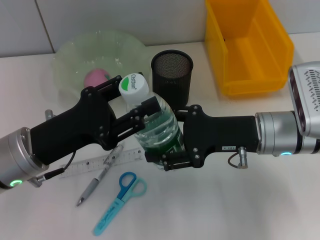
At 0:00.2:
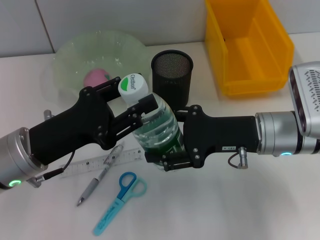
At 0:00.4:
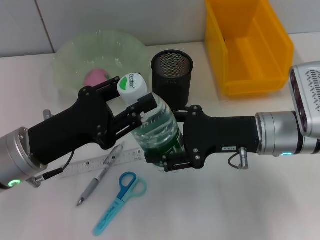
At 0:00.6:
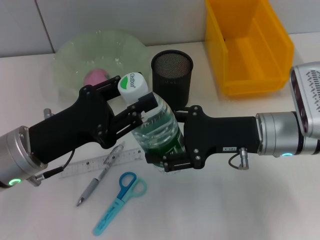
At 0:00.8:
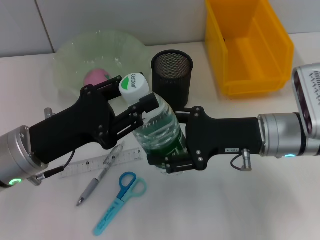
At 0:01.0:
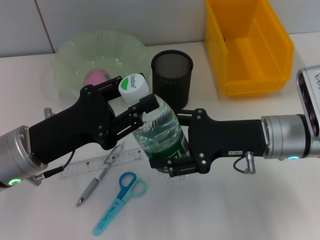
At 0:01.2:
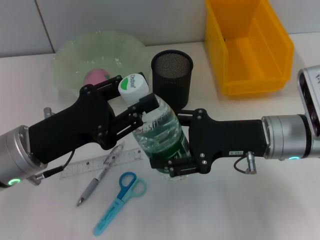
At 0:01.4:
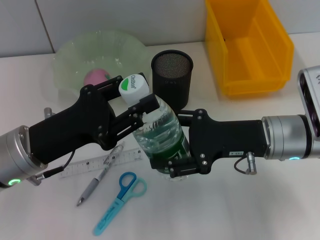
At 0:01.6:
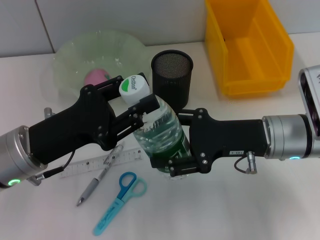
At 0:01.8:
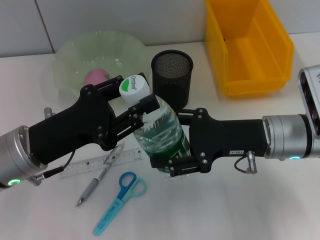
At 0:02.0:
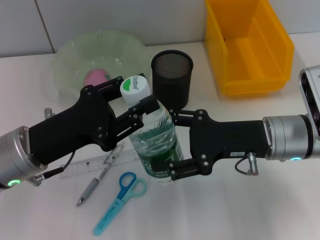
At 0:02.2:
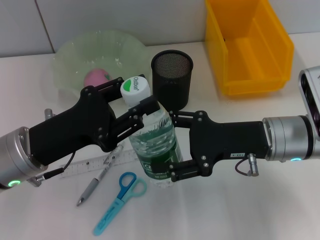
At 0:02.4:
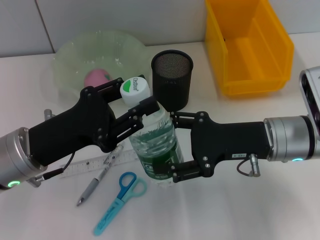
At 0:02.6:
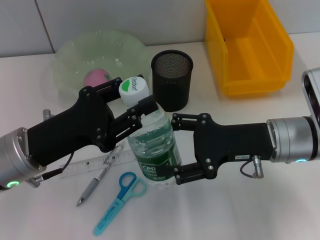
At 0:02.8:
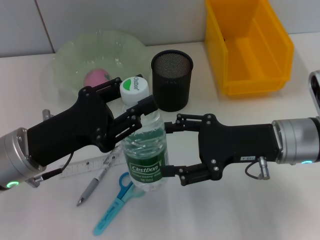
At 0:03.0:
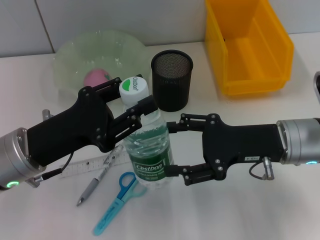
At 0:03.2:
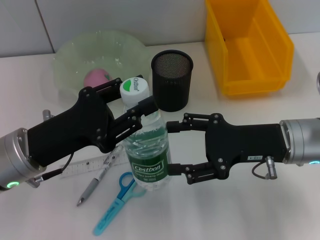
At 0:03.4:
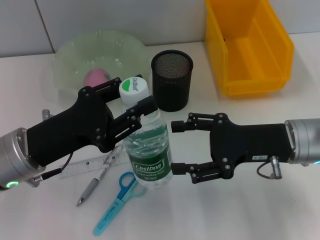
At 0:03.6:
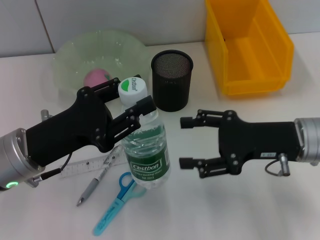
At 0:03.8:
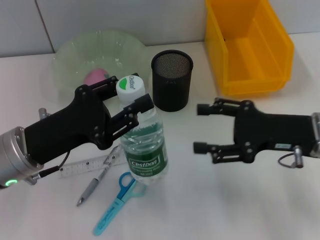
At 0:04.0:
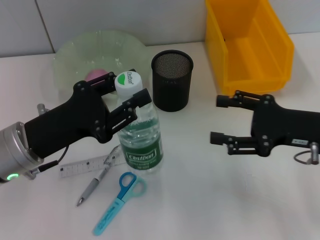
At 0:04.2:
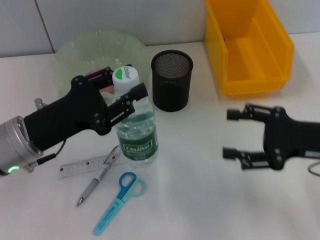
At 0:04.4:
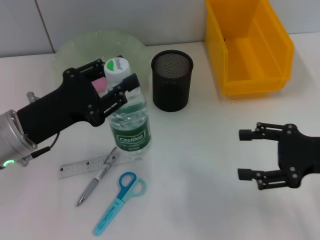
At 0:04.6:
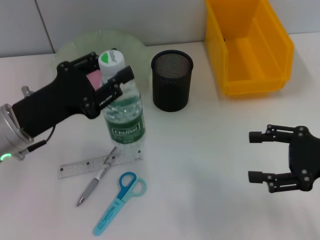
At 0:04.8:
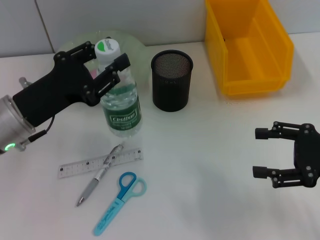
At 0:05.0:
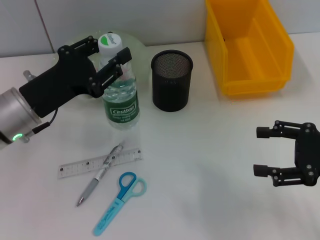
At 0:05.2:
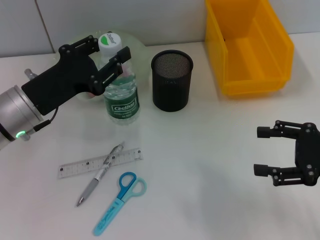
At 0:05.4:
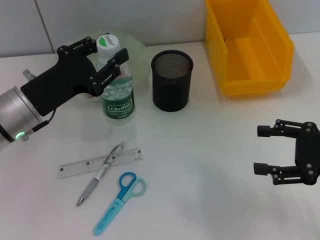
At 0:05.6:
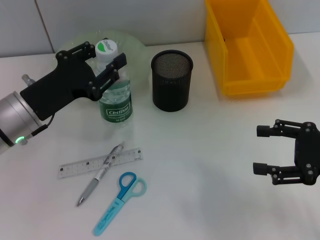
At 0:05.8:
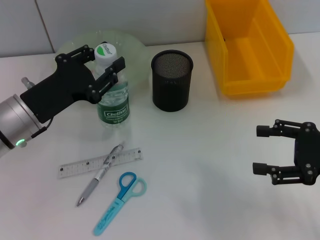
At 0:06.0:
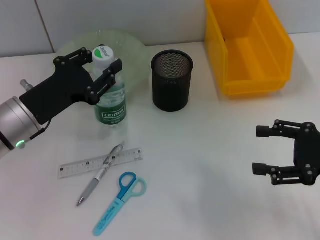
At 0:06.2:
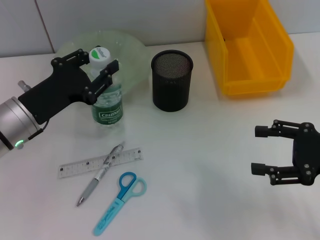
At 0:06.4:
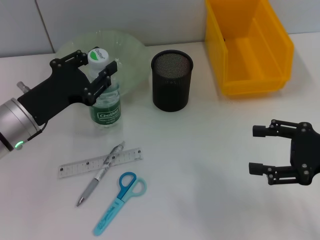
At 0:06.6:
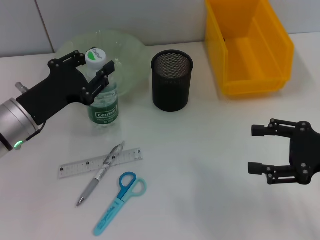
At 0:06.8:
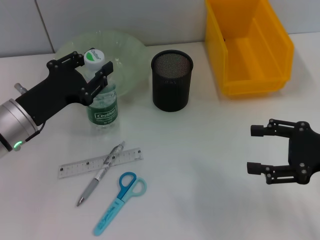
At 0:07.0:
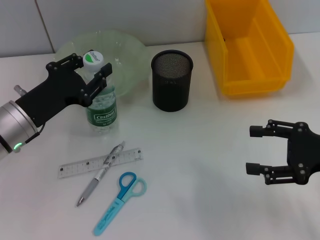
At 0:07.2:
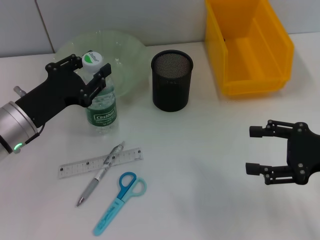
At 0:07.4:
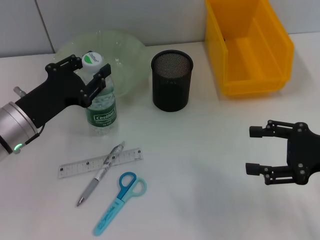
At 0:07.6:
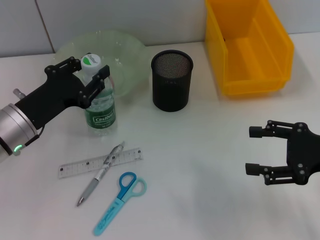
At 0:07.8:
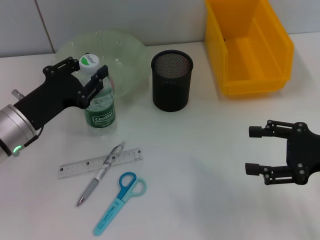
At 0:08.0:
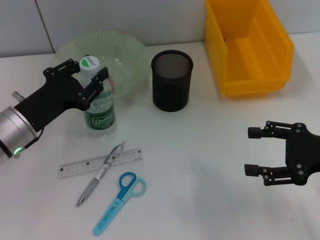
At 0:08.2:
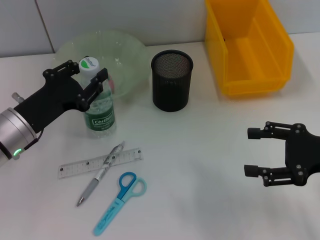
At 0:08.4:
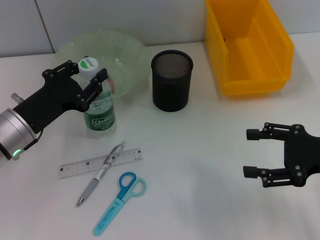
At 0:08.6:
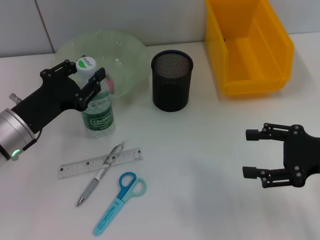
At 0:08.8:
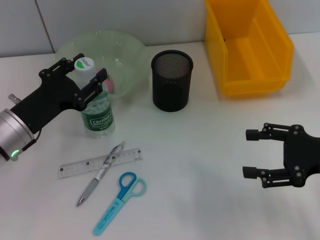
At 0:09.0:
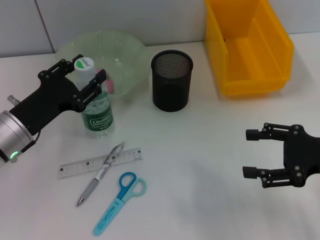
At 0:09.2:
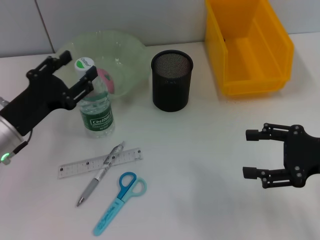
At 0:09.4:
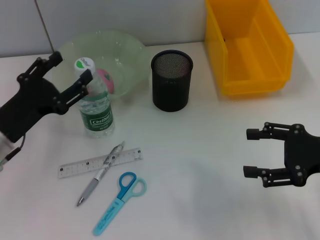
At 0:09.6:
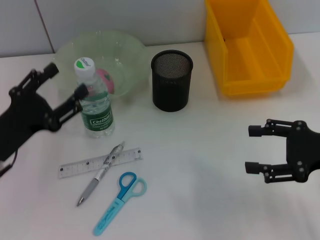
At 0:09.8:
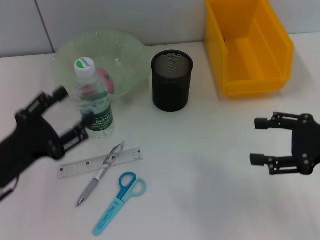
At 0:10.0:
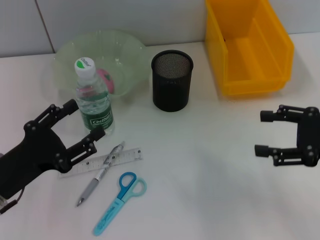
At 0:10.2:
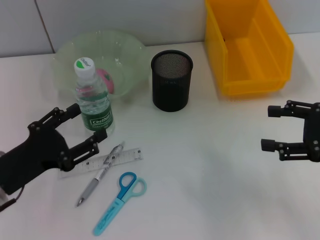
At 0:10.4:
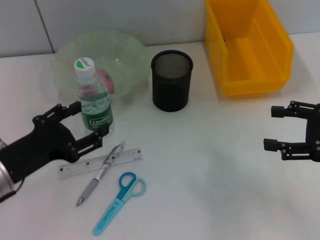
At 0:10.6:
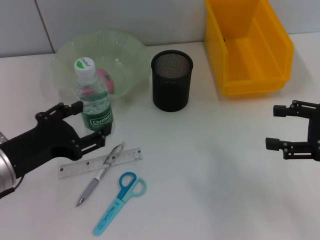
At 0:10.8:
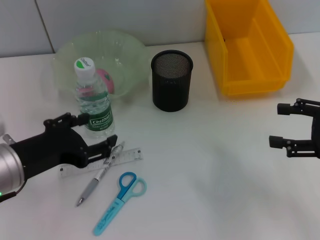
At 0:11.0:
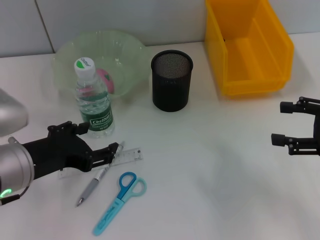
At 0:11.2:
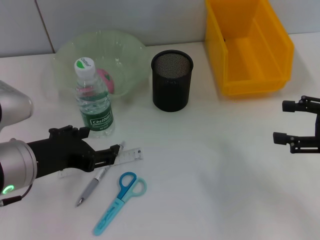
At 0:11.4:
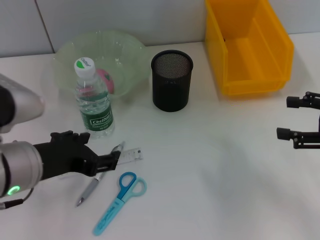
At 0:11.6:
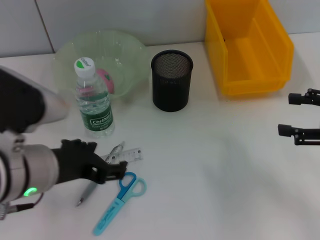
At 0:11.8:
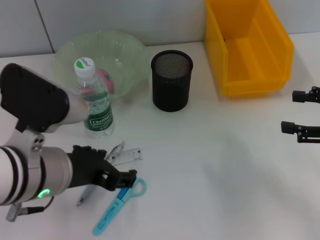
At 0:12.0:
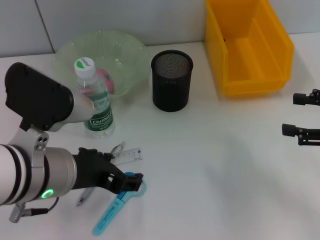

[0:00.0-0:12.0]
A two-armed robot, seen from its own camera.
Step, 0:01.4 to 0:08.6: Place the water bottle on the table with the left hand.
0:00.0 to 0:01.6: Neither gripper changes place.
0:01.6 to 0:03.0: There are only small adjustments of the grippers.
0:03.0 to 0:04.4: The right gripper goes approximately 10 cm to the right.
0:04.4 to 0:06.0: There are only small adjustments of the grippers.
0:06.0 to 0:07.6: The grippers move only a little.
0:07.6 to 0:09.0: The two grippers keep their place.
0:09.0 to 0:10.4: The left gripper moves backward, roughly 5 cm.
0:10.4 to 0:12.0: The left gripper moves to the right and upward, roughly 10 cm.

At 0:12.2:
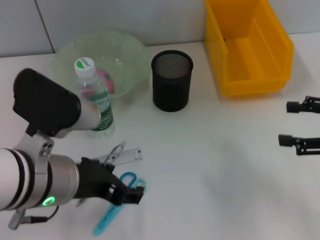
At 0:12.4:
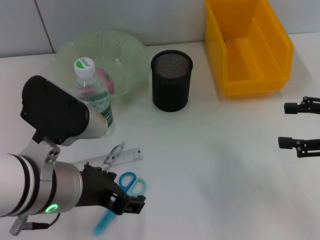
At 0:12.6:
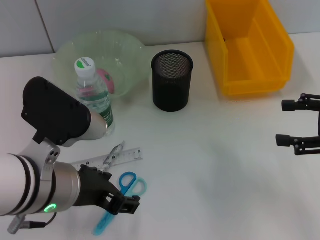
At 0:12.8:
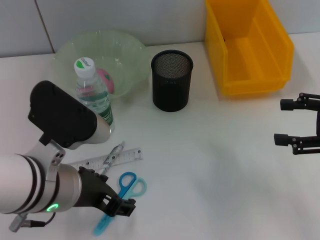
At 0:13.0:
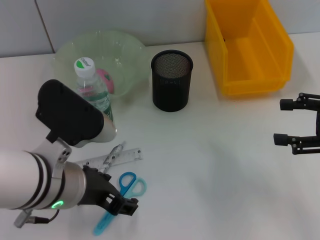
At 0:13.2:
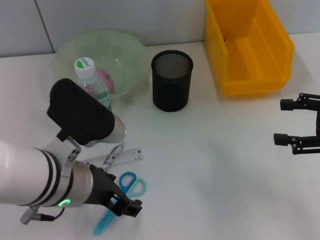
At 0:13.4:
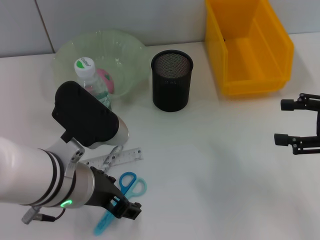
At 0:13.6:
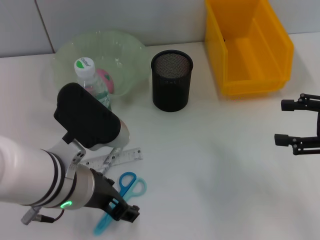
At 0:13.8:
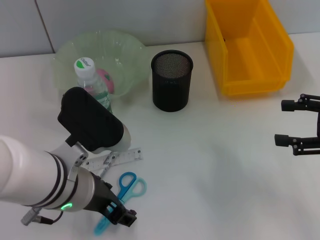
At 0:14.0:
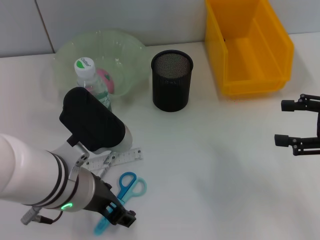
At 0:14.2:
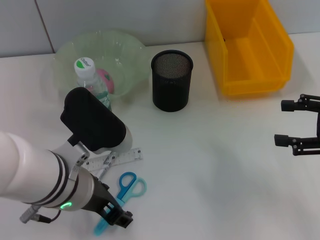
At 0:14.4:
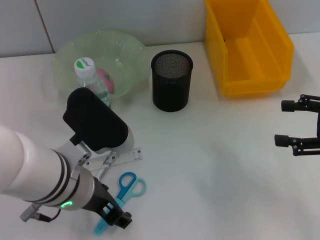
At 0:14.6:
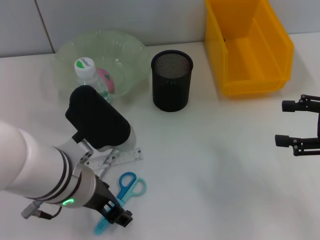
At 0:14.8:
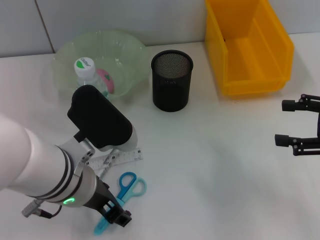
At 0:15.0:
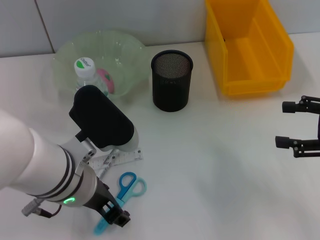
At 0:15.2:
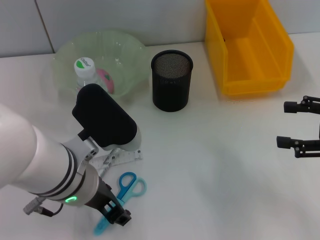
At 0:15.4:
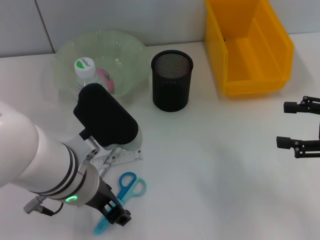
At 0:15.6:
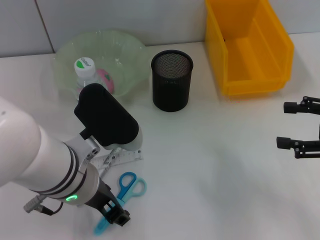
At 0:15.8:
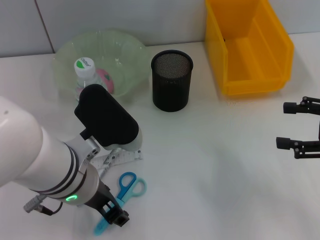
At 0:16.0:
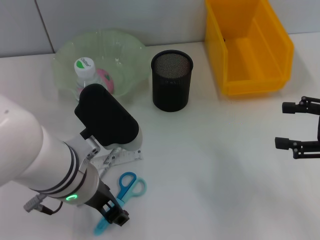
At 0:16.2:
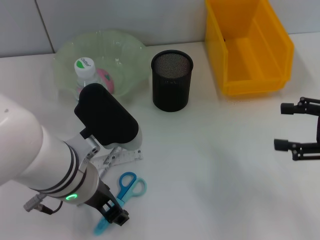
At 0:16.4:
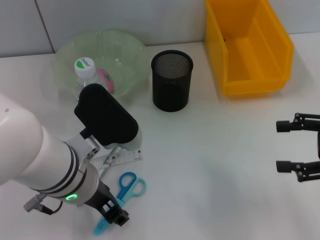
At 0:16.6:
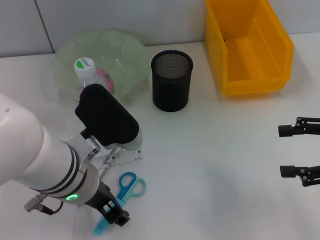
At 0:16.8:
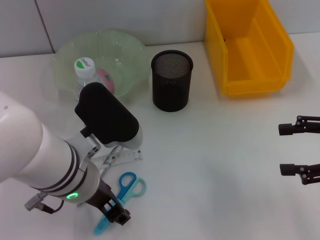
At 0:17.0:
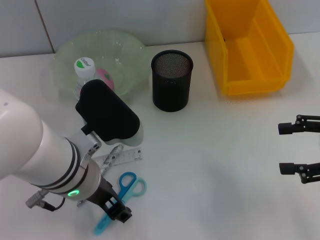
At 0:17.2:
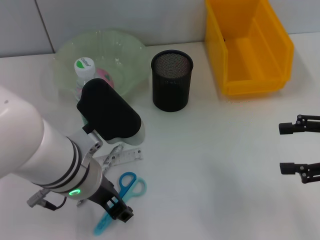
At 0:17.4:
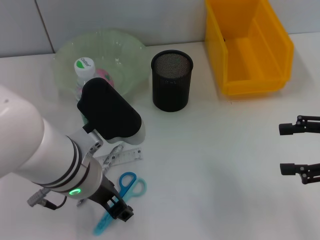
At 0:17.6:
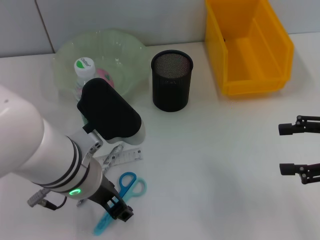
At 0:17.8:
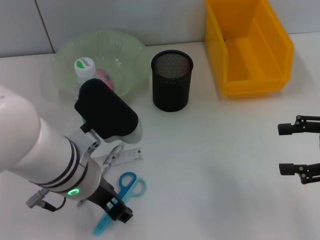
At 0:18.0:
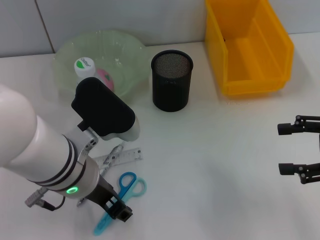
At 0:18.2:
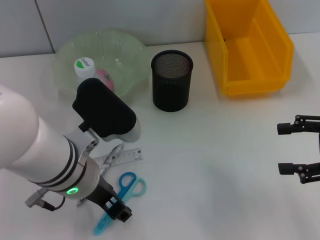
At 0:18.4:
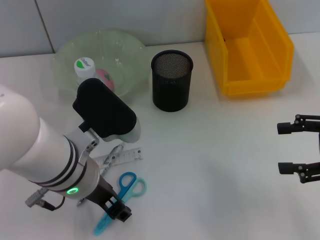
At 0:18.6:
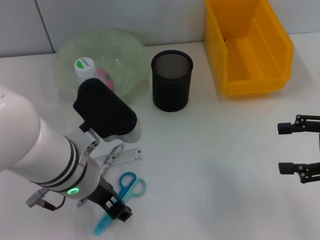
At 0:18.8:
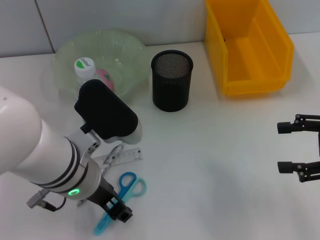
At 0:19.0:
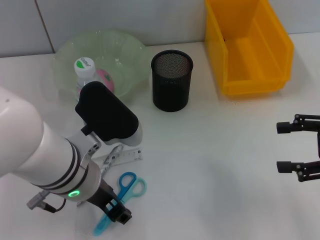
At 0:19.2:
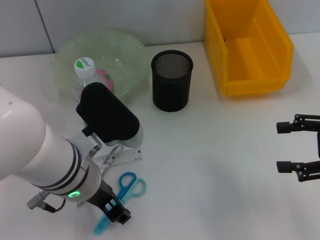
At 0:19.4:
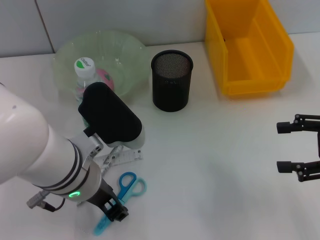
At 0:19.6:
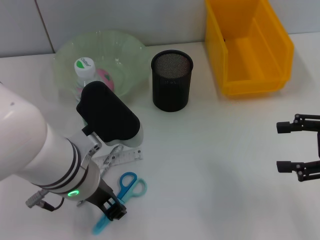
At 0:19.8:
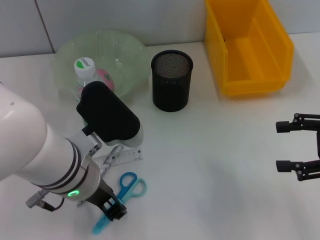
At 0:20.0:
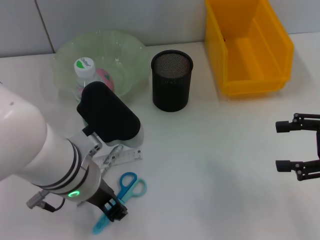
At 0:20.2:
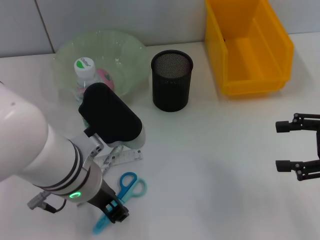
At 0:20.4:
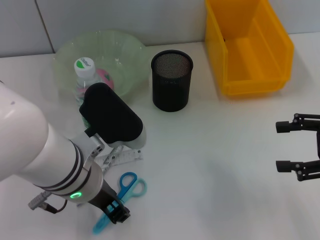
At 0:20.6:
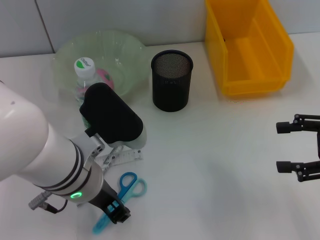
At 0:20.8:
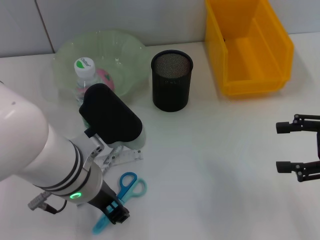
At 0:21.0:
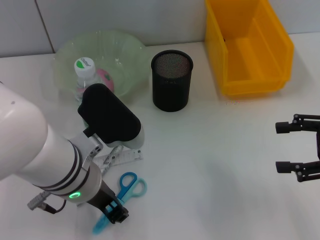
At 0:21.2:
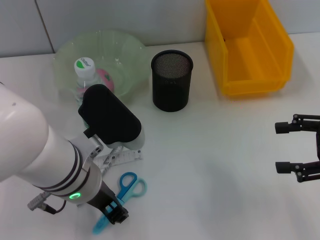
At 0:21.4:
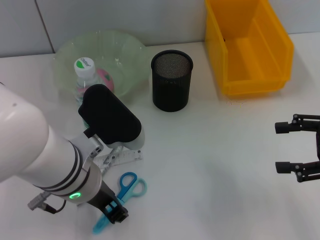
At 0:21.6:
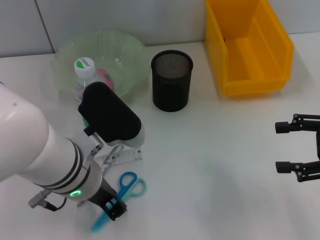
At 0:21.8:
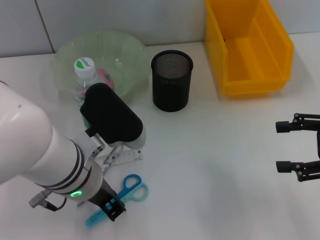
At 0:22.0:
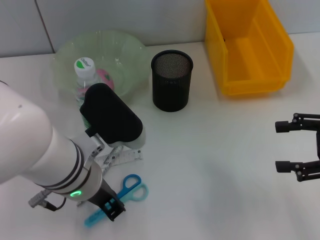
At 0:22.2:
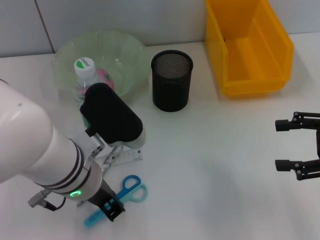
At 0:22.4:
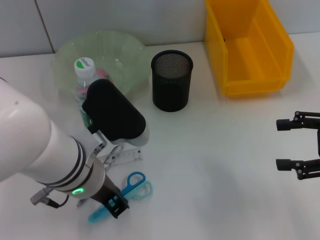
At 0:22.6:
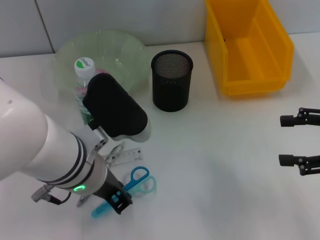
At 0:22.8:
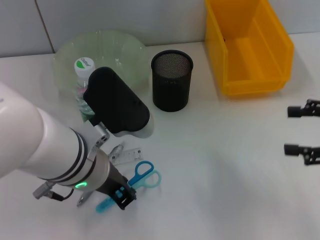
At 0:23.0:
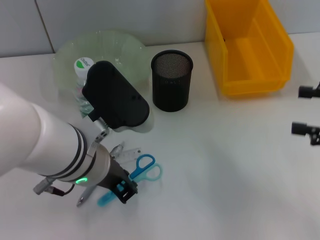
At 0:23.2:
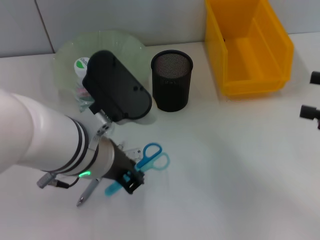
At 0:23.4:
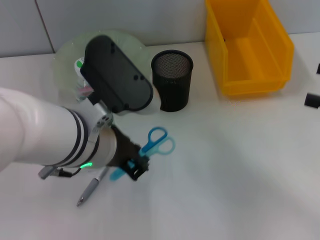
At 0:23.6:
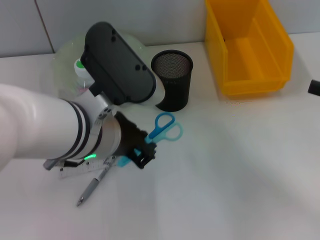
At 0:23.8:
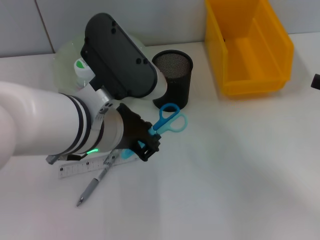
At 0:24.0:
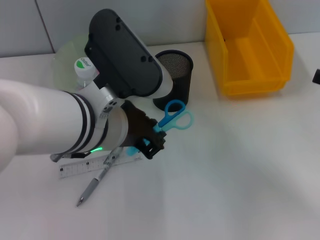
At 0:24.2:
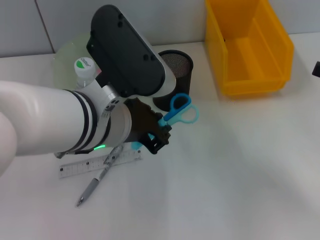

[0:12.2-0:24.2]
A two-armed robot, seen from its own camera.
Step, 0:12.2 to 0:22.0: Grab the blue scissors with the left hand.
0:12.2 to 0:13.8: There are only small adjustments of the grippers.
0:13.8 to 0:16.6: The grippers make only small movements.
0:16.6 to 0:22.6: Both grippers stay put.
0:22.6 to 0:24.2: The left gripper travels upward by some 5 cm.
